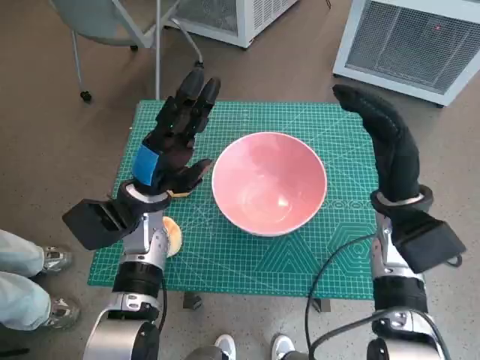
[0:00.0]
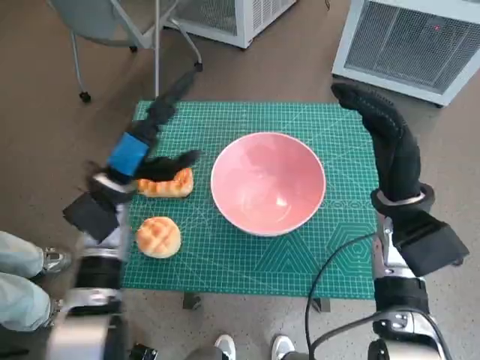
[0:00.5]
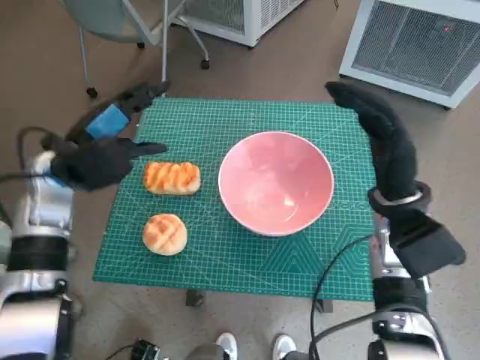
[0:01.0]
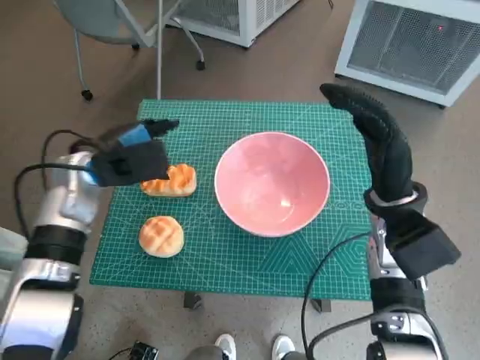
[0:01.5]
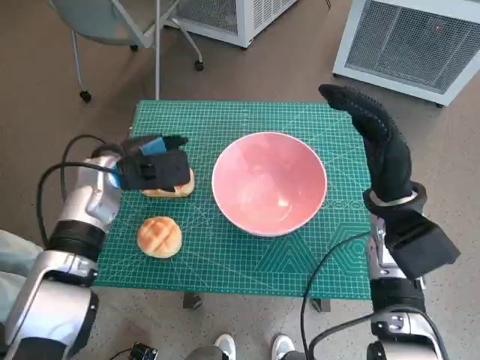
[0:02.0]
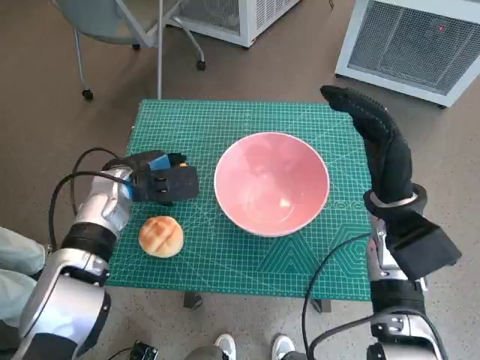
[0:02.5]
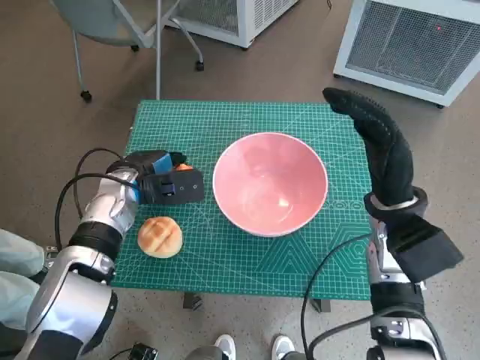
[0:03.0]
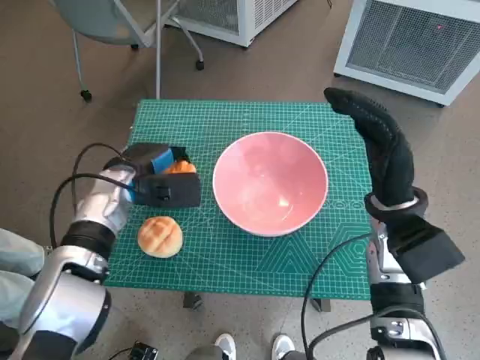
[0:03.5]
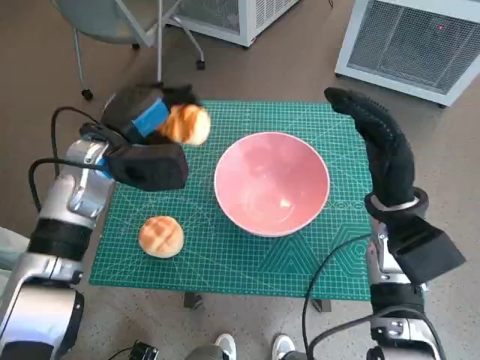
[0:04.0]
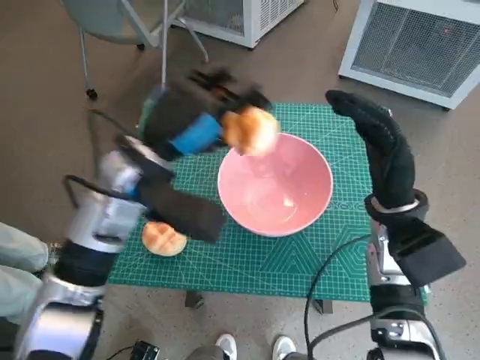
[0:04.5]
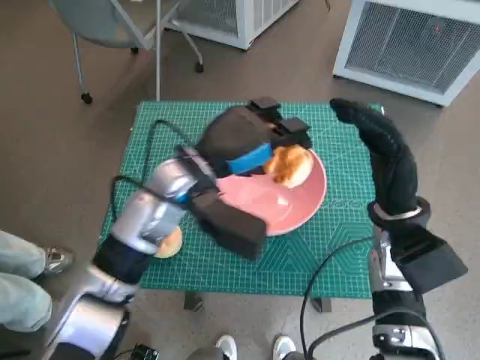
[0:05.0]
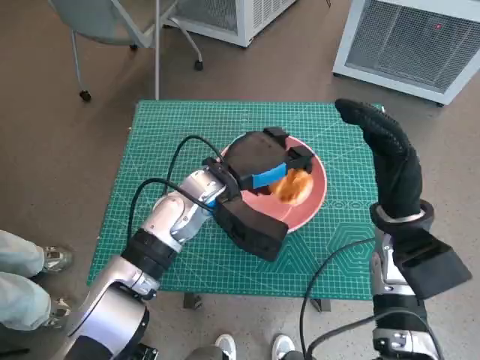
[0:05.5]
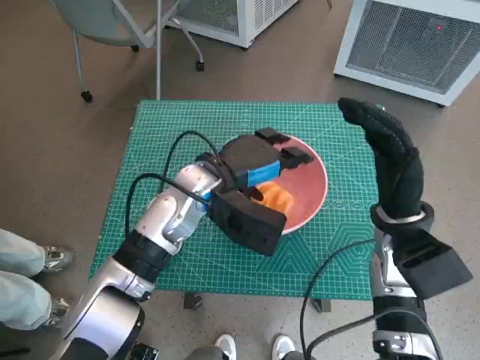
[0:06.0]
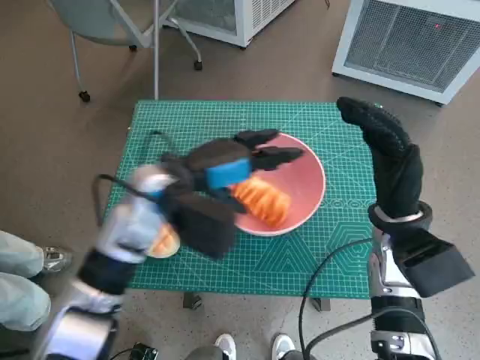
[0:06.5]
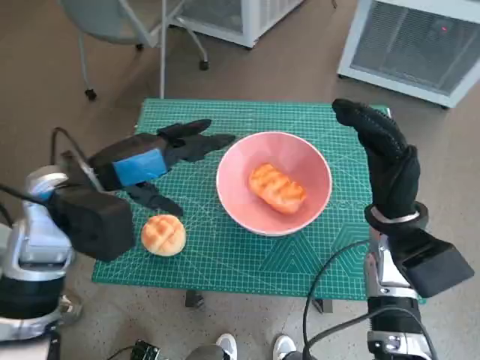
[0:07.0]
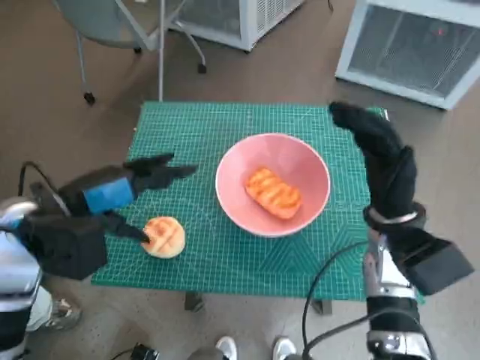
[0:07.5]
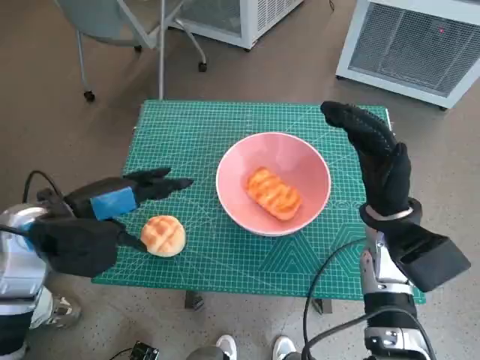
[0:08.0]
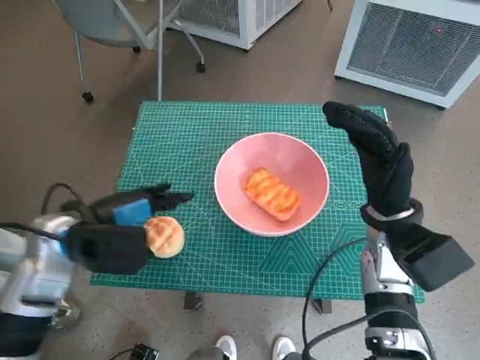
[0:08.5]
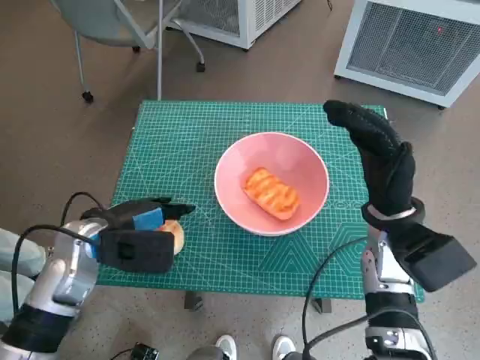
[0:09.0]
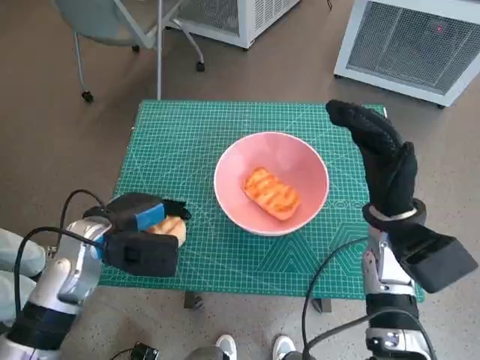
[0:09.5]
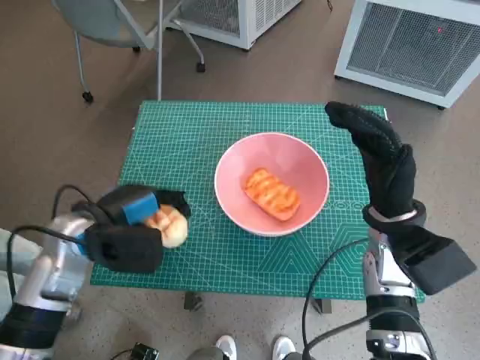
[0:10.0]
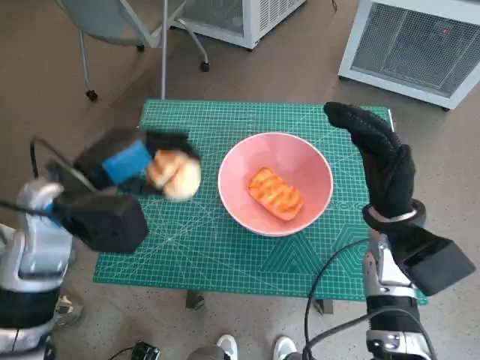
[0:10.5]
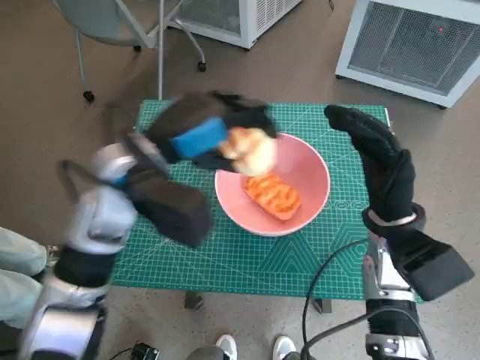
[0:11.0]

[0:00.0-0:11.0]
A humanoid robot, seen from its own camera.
Task of the whole recording: Push the bowl into the center of the table and put the bread into the bowl.
Step, 0:00.0 to 0:03.0: Grasp the long bread with left hand.
Step, 0:03.5 to 0:06.0: Place the long bread in pink bowl with left hand.
Step, 0:06.5 to 0:09.0: Grasp the round bread with left hand.
0:02.0 to 0:03.5: The hands move only a little.
0:03.5 to 0:05.5: The left hand heads to the right, covering some 15 cm.
0:05.5 to 0:07.5: The left hand heads to the left and backward, covering some 20 cm.
0:07.5 to 0:09.0: The left hand moves downward, roughly 10 cm.
0:09.0 to 0:11.0: The left hand heads upward and to the right, covering approximately 15 cm.

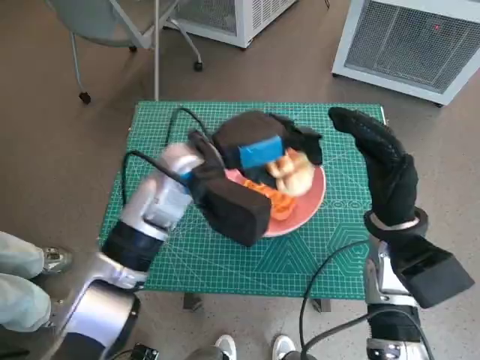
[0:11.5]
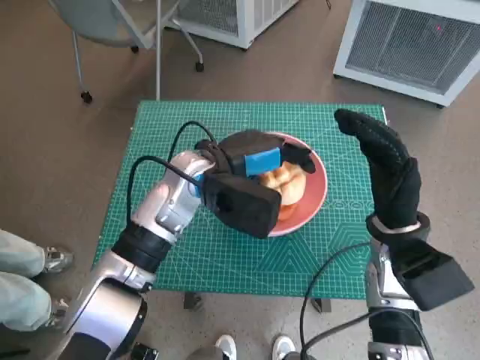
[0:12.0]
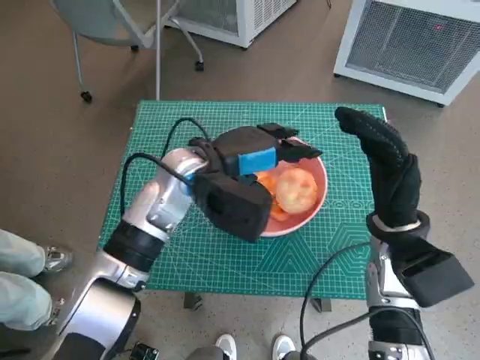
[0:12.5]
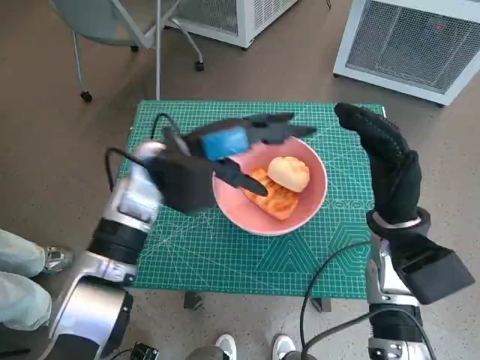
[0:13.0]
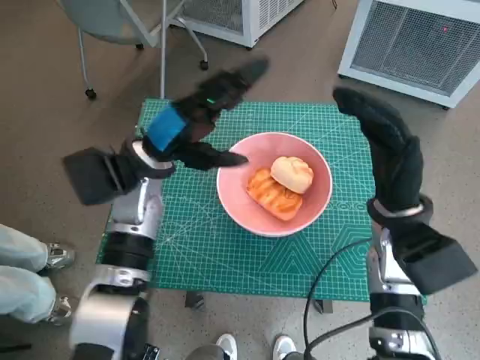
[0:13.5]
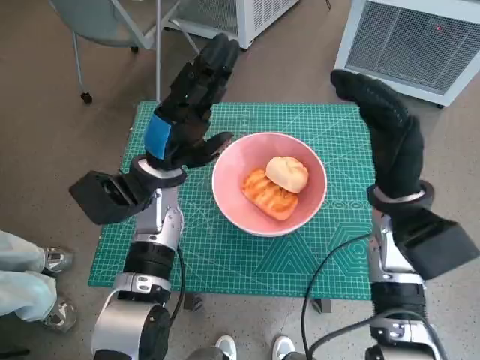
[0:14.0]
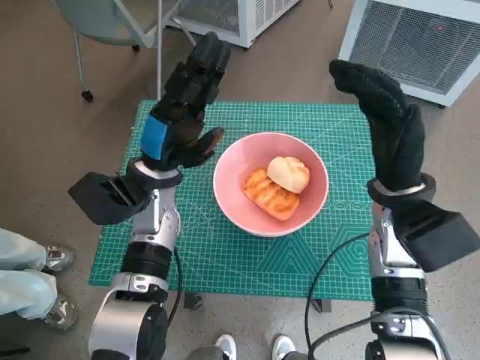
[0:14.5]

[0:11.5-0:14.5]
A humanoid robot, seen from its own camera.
Task of the whole recording: Push the bowl into the center of the table and put the bread into the bowl.
0:13.0 to 0:14.5: The left hand moves downward, about 5 cm.
